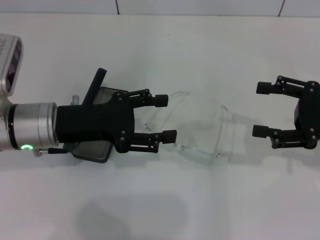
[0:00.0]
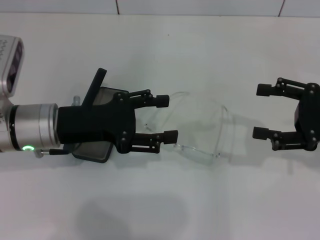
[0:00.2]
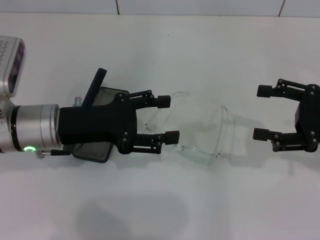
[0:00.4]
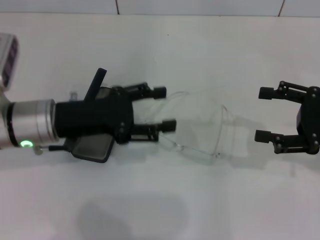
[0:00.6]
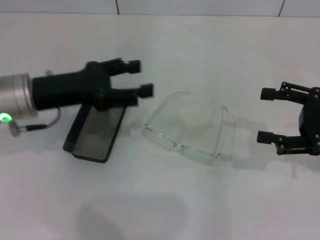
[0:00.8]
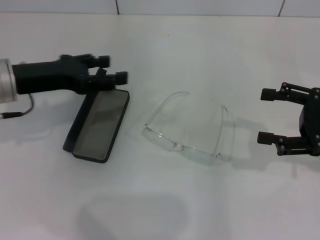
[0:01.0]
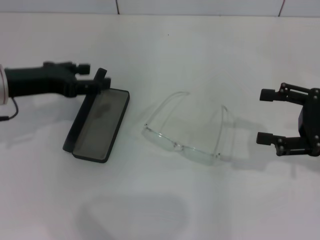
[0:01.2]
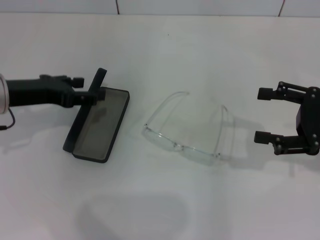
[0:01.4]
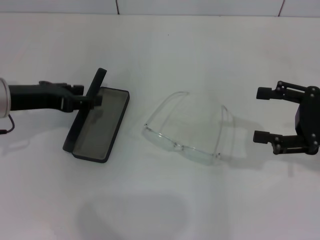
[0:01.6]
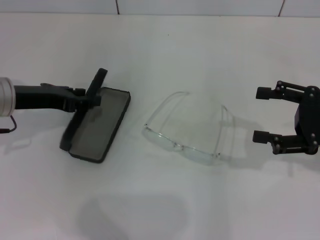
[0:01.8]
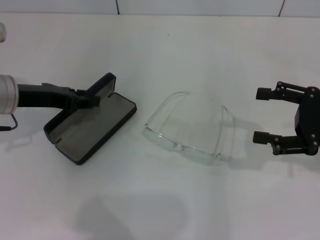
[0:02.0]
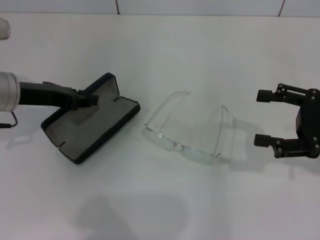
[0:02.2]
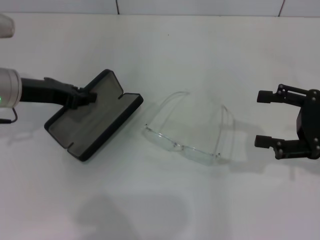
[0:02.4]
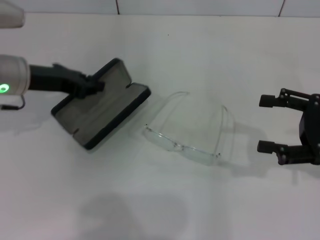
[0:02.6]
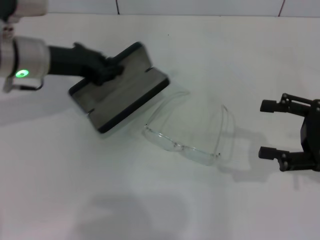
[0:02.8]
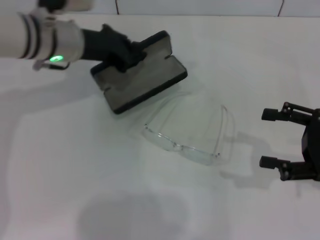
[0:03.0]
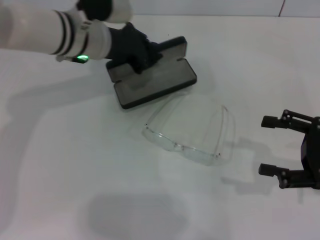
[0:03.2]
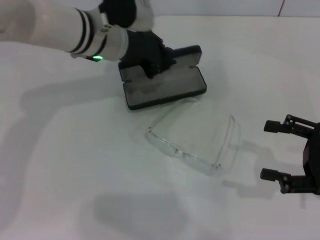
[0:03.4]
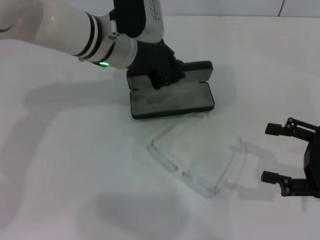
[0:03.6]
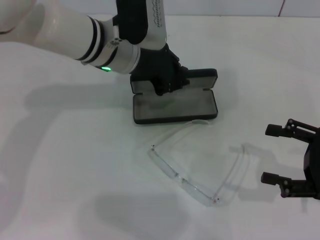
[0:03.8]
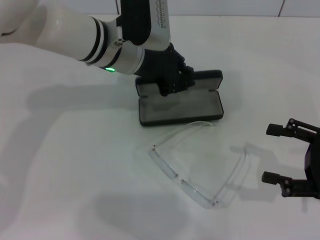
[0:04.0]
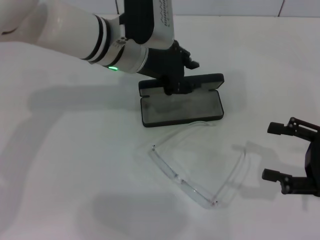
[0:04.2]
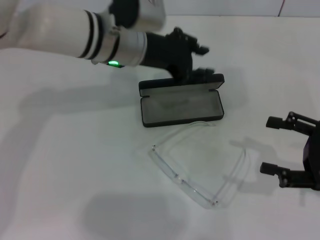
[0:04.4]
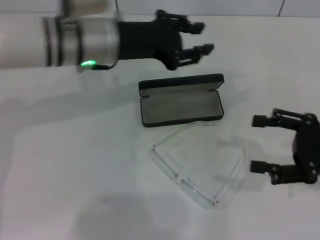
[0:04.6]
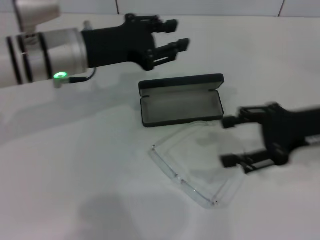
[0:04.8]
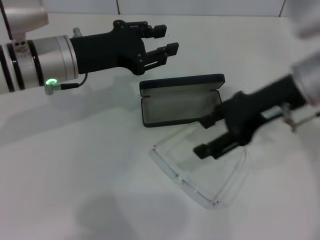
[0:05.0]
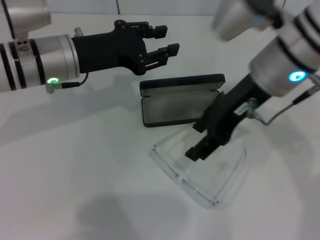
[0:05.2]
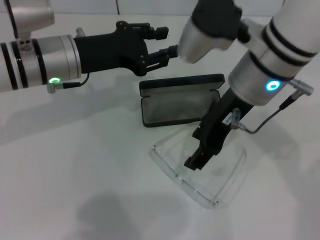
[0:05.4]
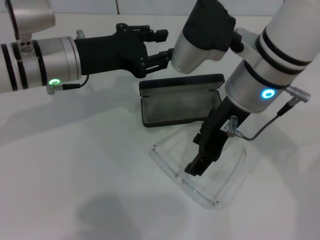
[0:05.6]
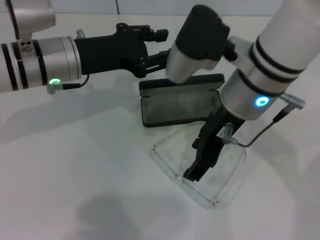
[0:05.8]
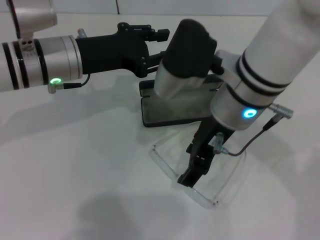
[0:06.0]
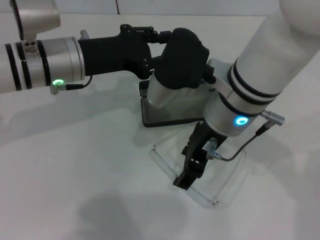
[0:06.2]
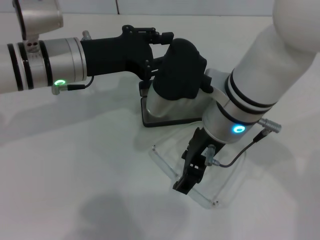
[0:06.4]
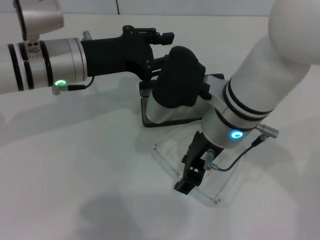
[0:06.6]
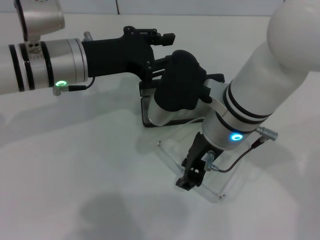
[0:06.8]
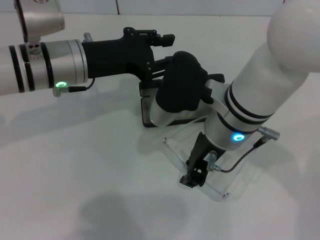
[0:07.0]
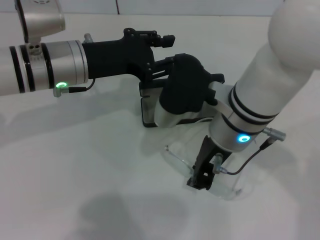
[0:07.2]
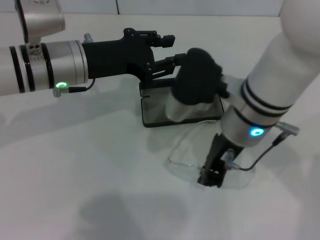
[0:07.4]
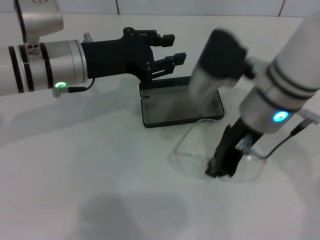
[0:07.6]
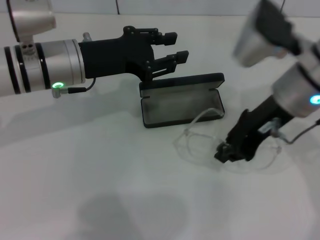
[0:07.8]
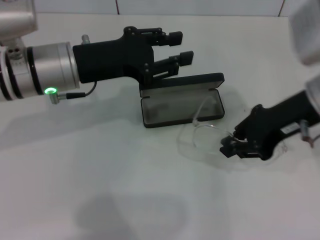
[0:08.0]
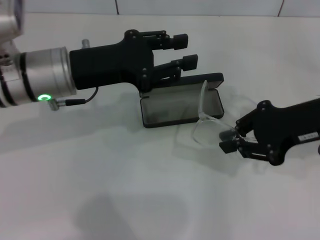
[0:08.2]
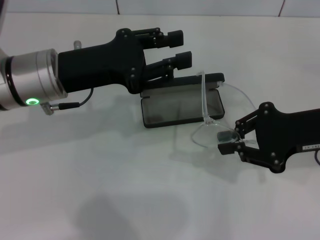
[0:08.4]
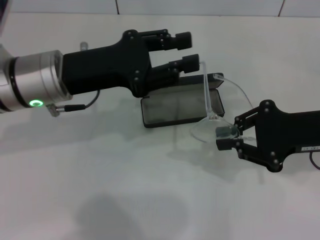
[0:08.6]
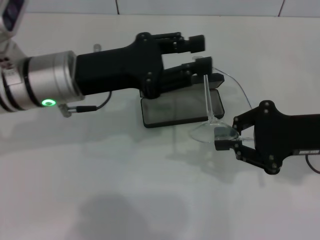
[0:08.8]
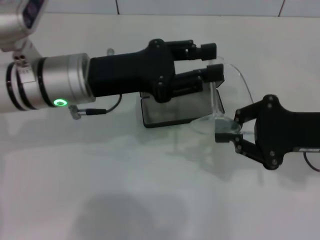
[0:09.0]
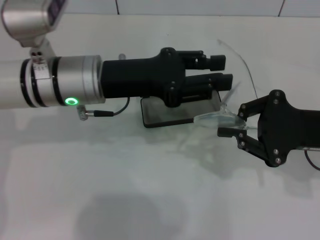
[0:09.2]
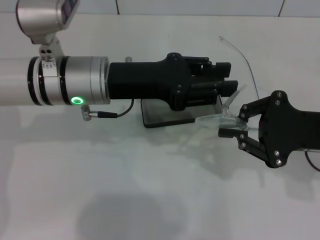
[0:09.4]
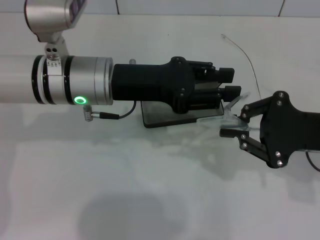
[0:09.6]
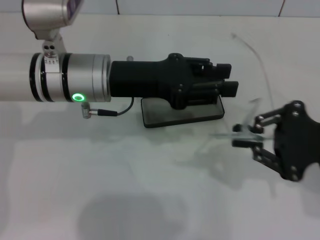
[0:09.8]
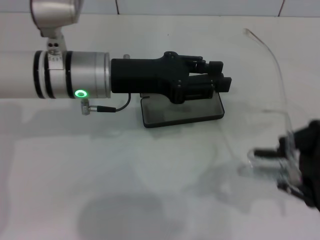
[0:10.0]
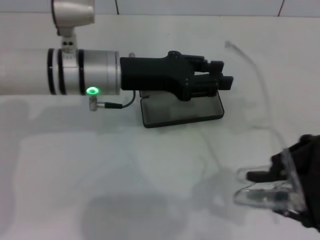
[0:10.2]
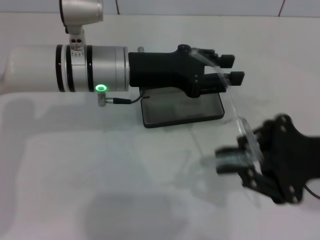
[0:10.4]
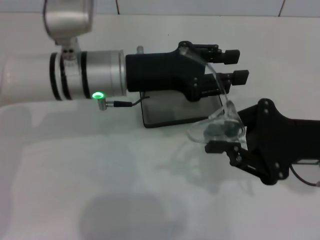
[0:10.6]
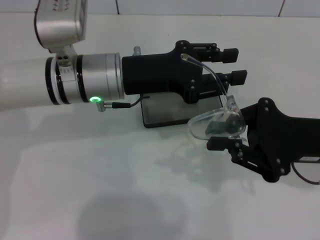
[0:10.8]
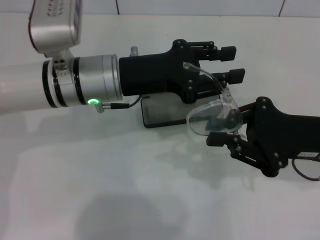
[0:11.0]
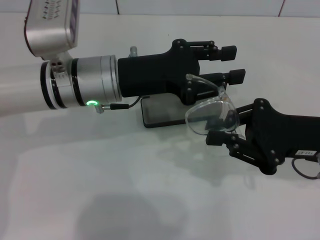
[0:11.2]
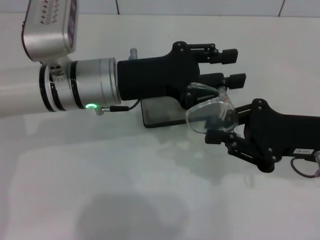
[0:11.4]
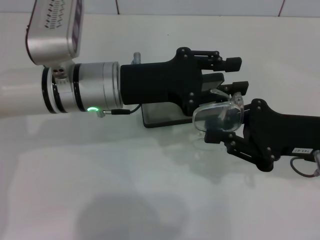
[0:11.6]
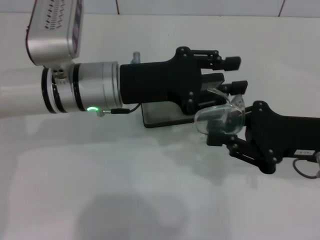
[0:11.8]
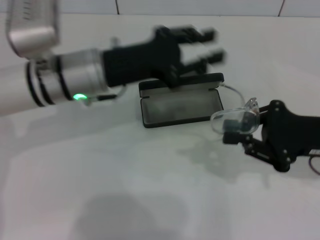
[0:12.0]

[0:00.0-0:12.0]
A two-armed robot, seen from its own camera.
Step, 0.0 to 1.8 s: Grab the glasses case with your left hand.
Step, 2.0 to 4.0 s: Place the glasses case in the center of the table with your left hand.
Step, 4.2 to 6.8 s: Grab the eyeglass frame with your right hand.
Step, 7.2 to 11.4 s: Fold the frame with your left hand.
0.0 to 1.6 s: The left gripper moves to the left, some 5 cm.
1.6 to 3.0 s: The left gripper goes some 15 cm to the right and forward, and closes.
3.0 to 4.4 s: The left gripper moves to the right, some 10 cm.
4.4 to 6.0 s: The right gripper heads to the left and upward, covering about 25 cm. The left gripper shifts approximately 10 cm to the left.
6.0 to 7.6 s: The right gripper closes up.
7.6 to 9.0 s: The right gripper travels to the right by approximately 15 cm.
9.0 to 10.4 s: The left gripper changes place by approximately 5 cm.

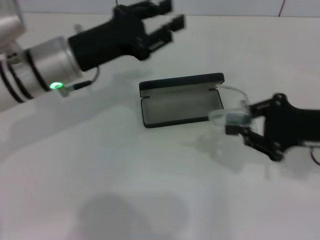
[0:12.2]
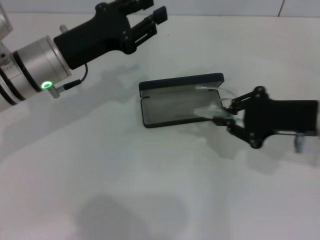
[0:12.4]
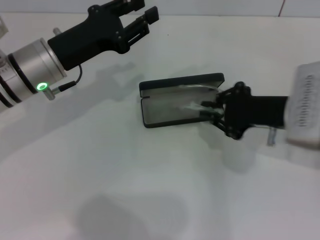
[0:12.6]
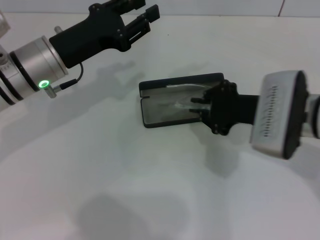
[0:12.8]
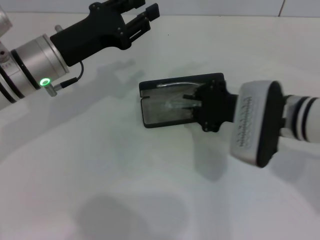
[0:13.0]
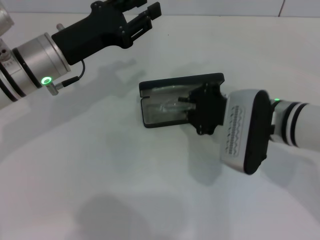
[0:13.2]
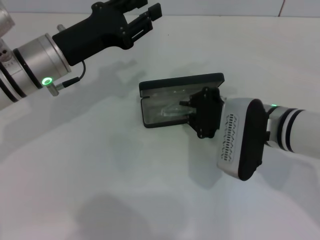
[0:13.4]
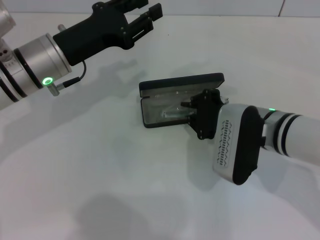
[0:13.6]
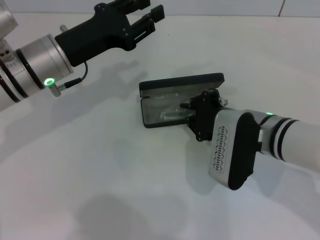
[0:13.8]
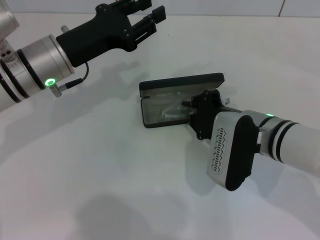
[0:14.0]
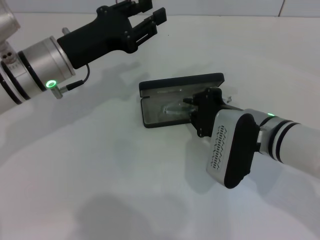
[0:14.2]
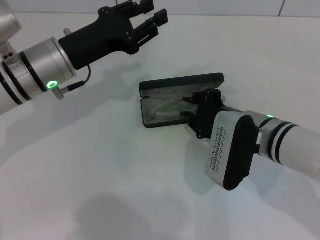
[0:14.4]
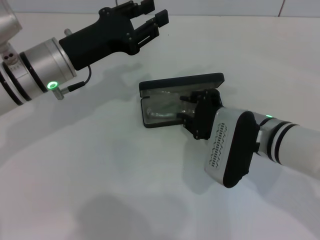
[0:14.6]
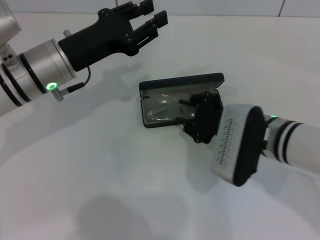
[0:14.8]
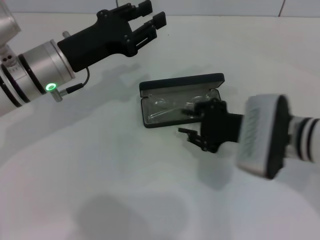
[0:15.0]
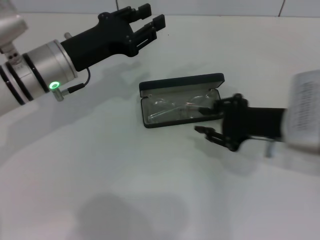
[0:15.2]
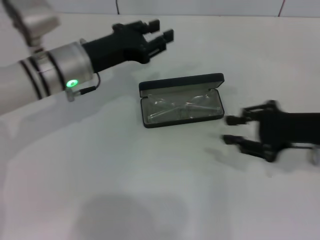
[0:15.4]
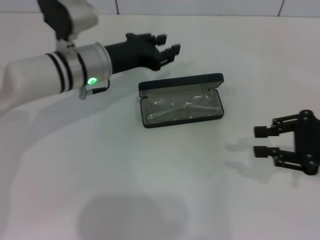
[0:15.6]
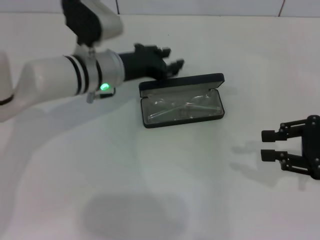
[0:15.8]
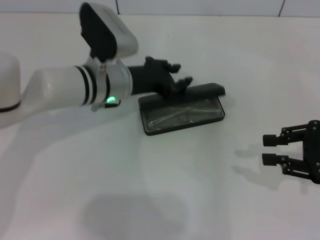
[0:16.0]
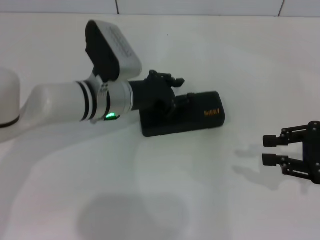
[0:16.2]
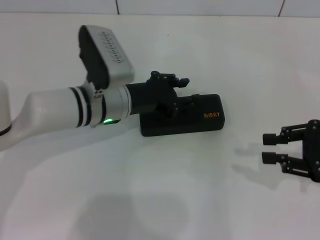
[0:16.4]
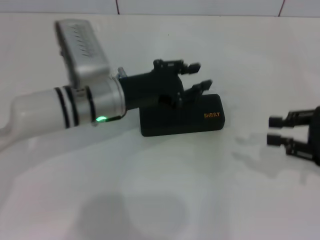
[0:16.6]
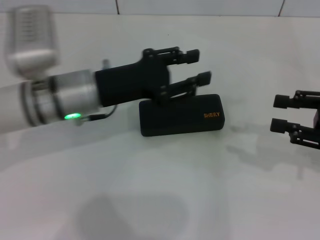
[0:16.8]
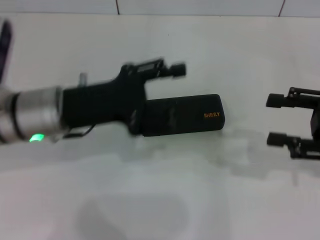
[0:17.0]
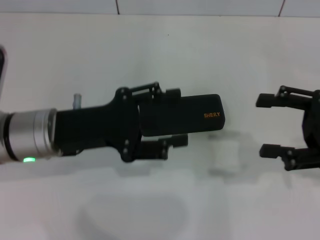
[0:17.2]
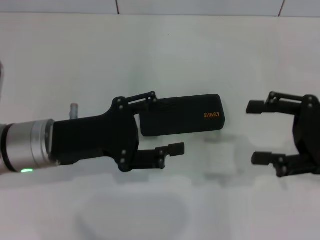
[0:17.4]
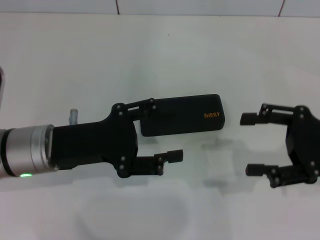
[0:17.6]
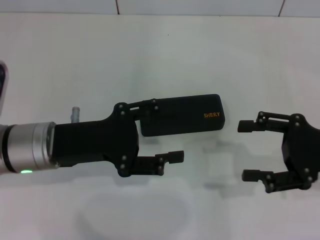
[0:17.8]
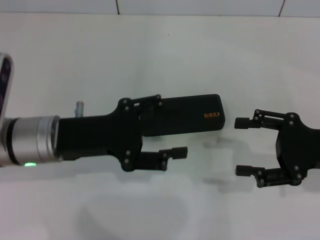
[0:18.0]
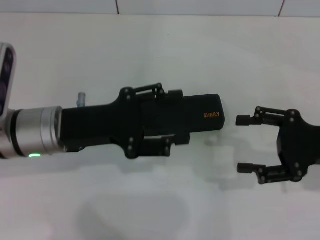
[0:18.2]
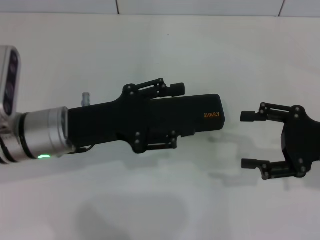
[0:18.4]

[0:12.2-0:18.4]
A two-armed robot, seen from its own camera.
Step, 12.2 to 14.8 s: Put the glasses into the case with your right hand.
Step, 15.0 to 16.0 s: Close the glasses case with your left hand.
12.2 to 13.8 s: The right gripper goes roughly 15 cm to the left.
13.8 to 15.4 s: The right gripper is displaced to the right by roughly 10 cm.
15.4 to 16.8 s: The left gripper changes place by roughly 5 cm. The right gripper is displaced to the right by about 5 cm.
16.8 to 18.4 s: The right gripper opens; the left gripper ends up roughly 5 cm from where it was, and opens up.

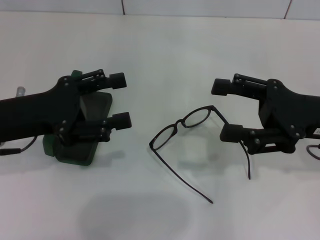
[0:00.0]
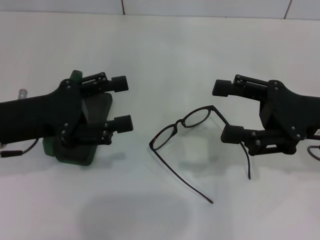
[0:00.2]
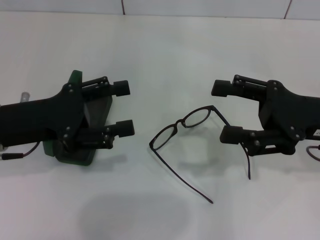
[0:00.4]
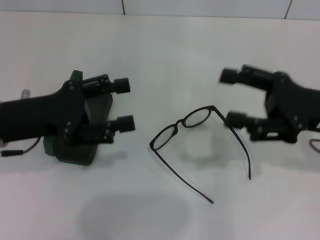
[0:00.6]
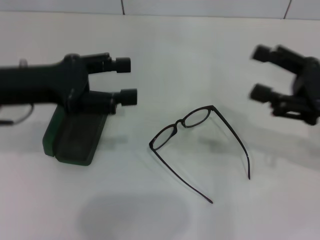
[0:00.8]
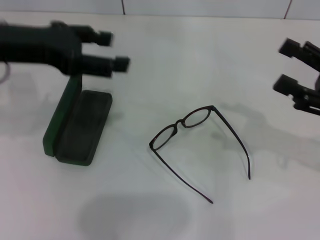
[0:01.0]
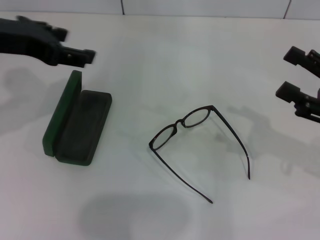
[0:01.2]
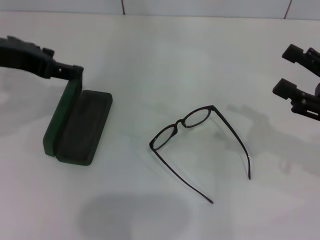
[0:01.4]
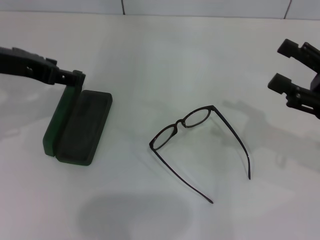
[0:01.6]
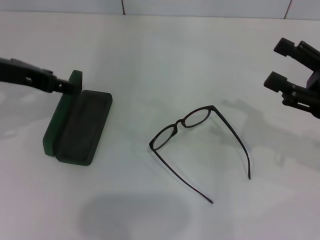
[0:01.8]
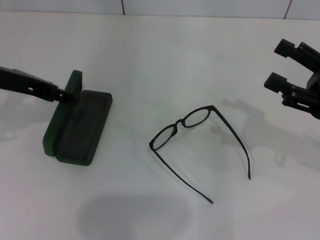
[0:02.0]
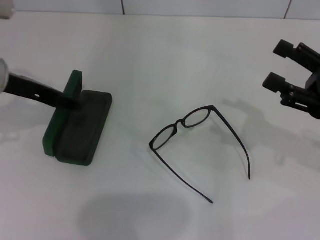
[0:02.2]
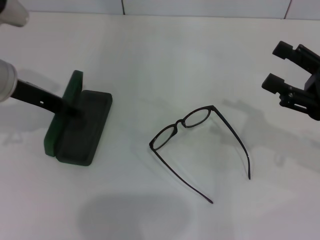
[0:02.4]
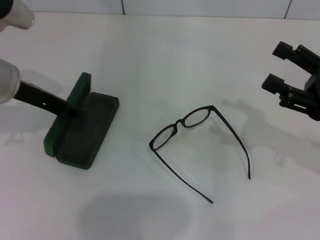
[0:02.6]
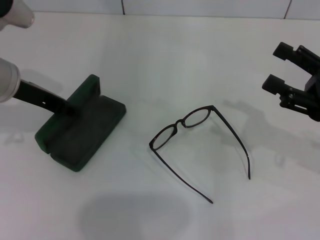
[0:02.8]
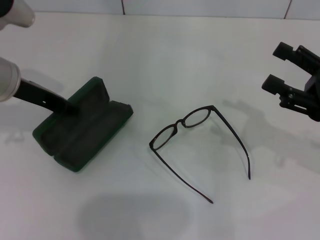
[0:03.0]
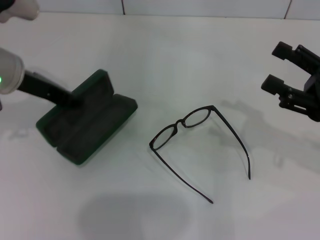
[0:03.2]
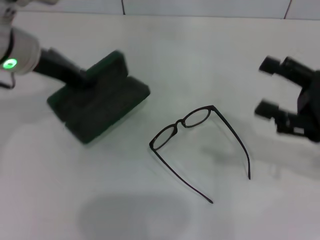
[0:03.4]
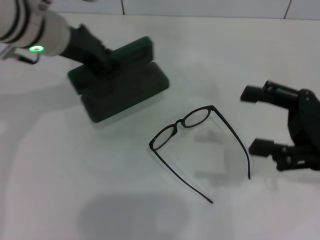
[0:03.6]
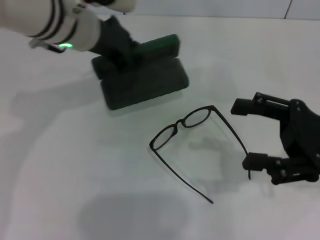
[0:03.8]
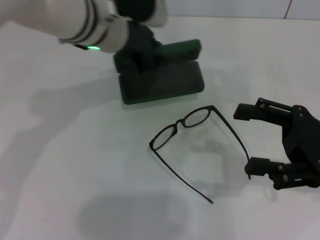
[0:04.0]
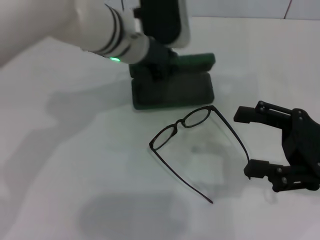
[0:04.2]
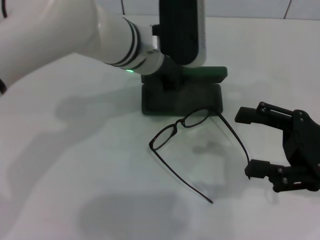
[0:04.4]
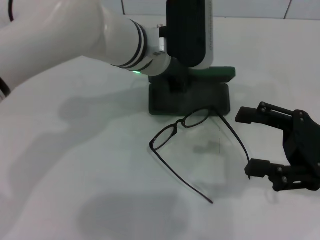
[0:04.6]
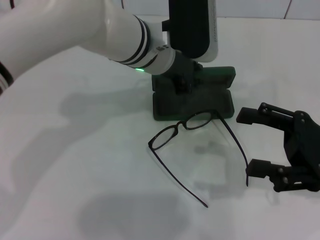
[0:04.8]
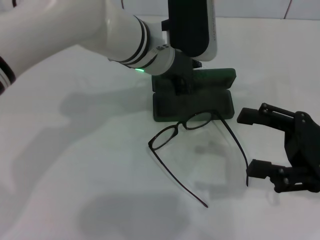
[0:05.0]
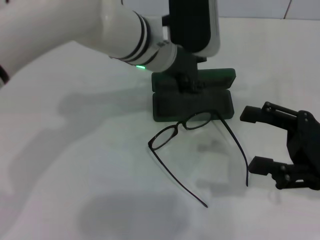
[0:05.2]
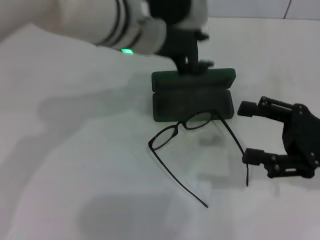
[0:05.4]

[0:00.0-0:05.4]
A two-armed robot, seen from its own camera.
Step, 0.0 to 2.6 s: Grab the glasses case with your left hand.
Step, 2.8 to 5.0 s: Place the glasses case in the center of the table with your left hand.
0.0 to 1.4 s: The left gripper is displaced upward by roughly 10 cm; the right gripper travels to the right by roughly 5 cm.
1.4 to 2.8 s: The left gripper heads downward, covering some 5 cm, and closes up.
2.8 to 4.0 s: The left gripper shifts roughly 15 cm to the right.
4.0 to 5.4 s: The left gripper ends up roughly 5 cm from where it was, and opens its fingers.
